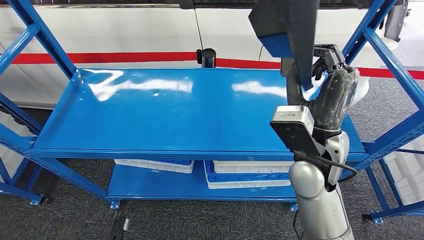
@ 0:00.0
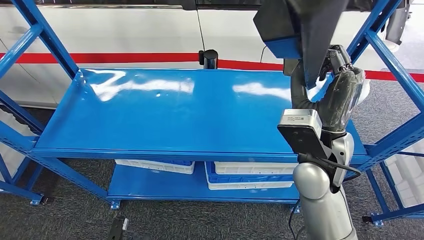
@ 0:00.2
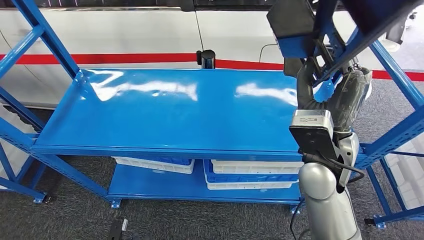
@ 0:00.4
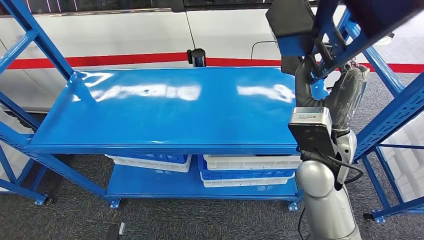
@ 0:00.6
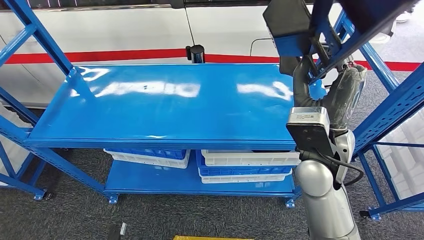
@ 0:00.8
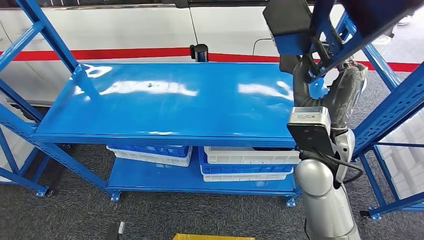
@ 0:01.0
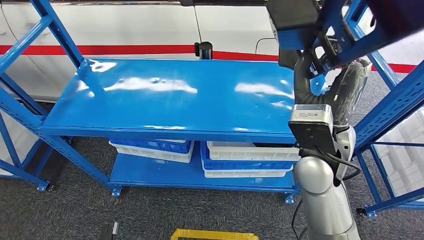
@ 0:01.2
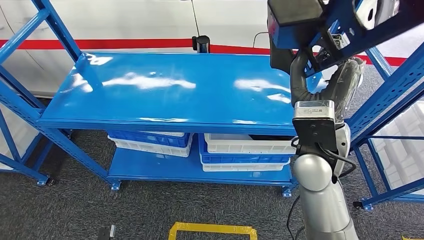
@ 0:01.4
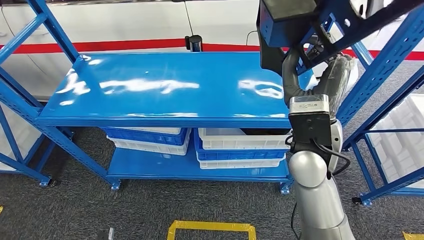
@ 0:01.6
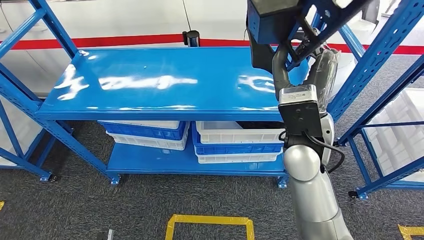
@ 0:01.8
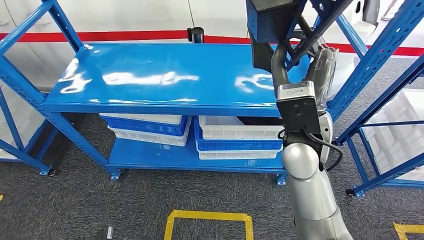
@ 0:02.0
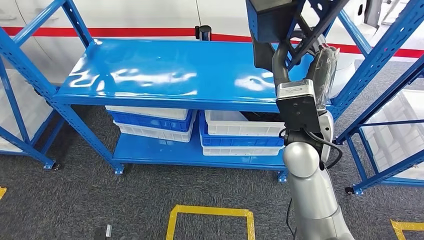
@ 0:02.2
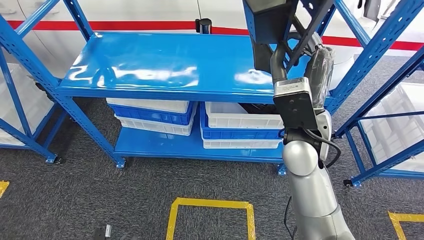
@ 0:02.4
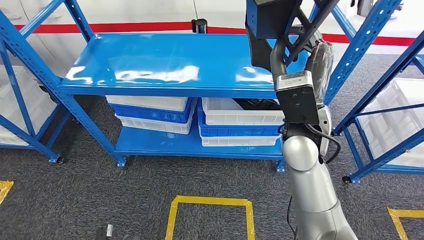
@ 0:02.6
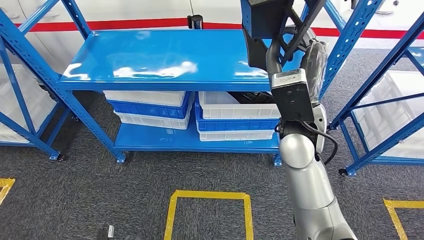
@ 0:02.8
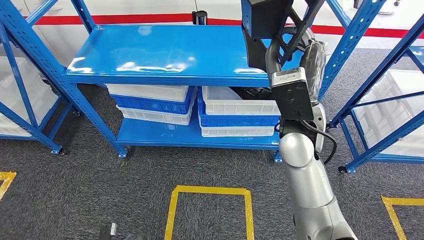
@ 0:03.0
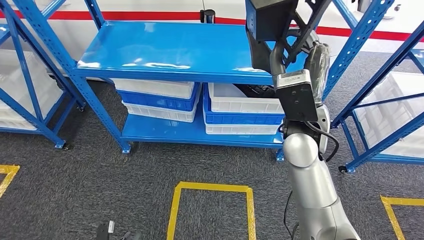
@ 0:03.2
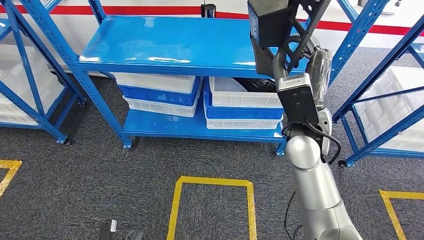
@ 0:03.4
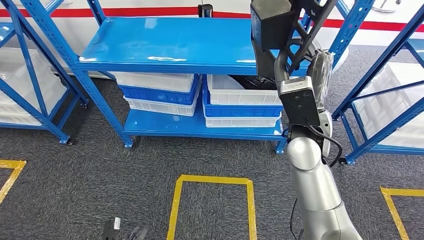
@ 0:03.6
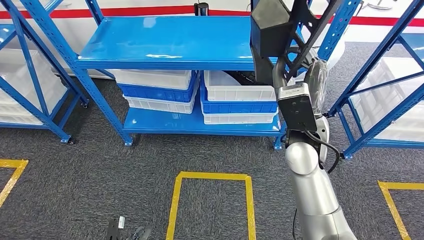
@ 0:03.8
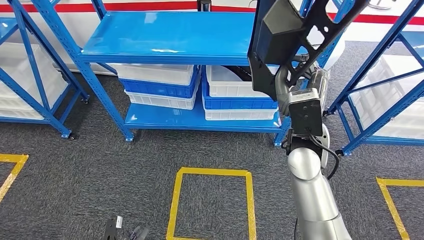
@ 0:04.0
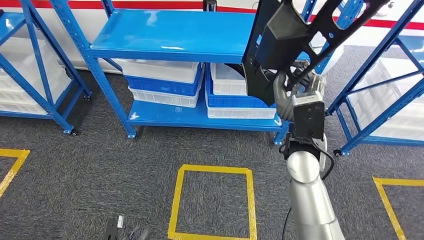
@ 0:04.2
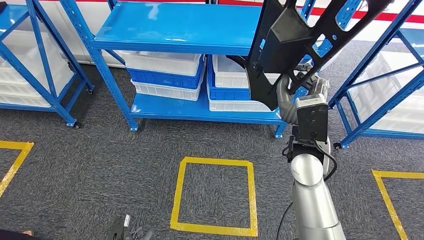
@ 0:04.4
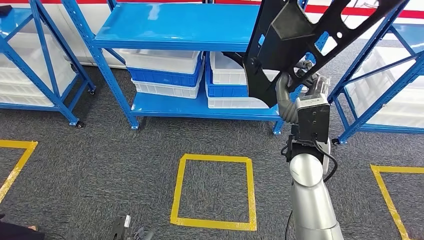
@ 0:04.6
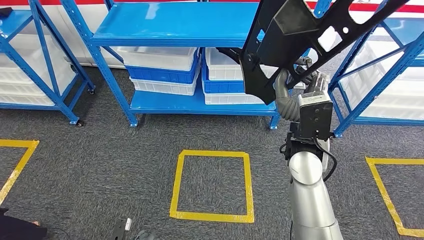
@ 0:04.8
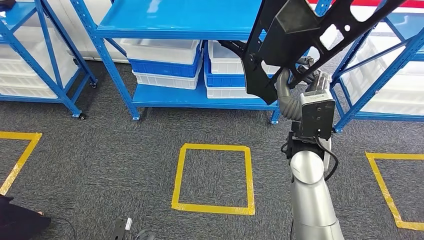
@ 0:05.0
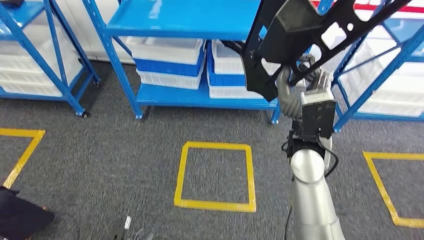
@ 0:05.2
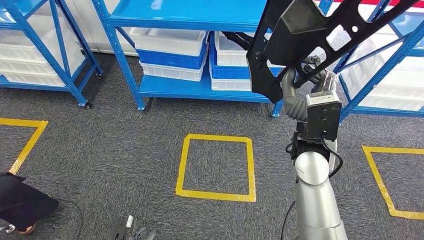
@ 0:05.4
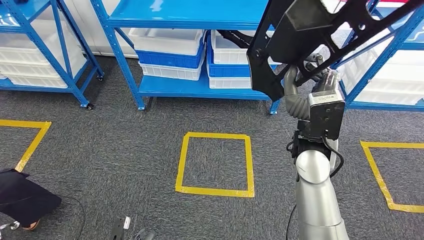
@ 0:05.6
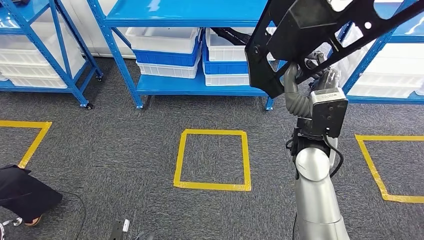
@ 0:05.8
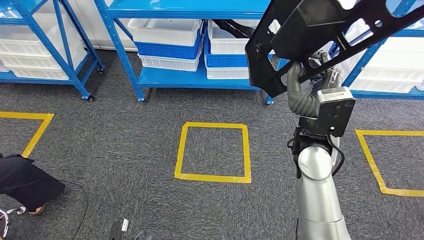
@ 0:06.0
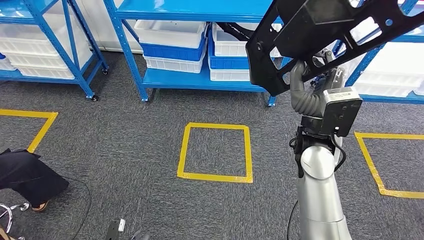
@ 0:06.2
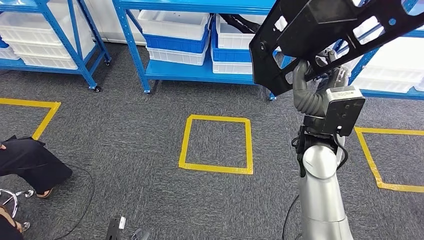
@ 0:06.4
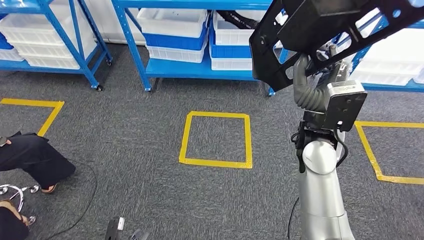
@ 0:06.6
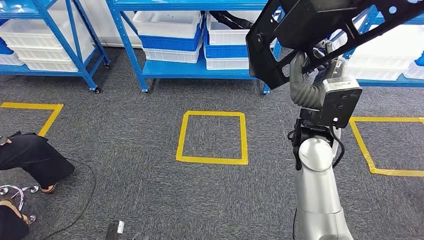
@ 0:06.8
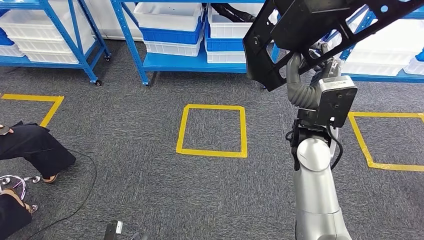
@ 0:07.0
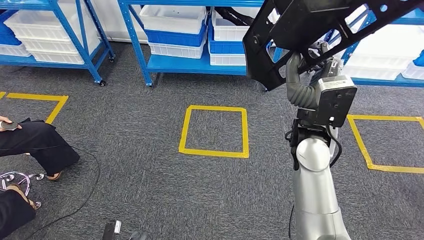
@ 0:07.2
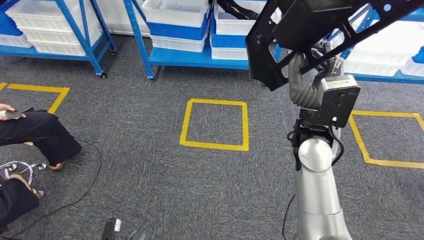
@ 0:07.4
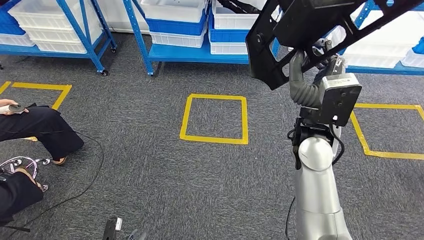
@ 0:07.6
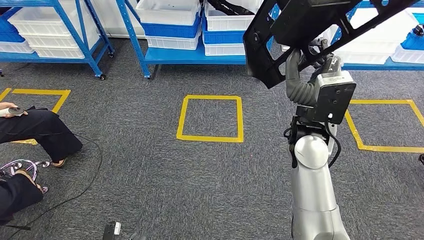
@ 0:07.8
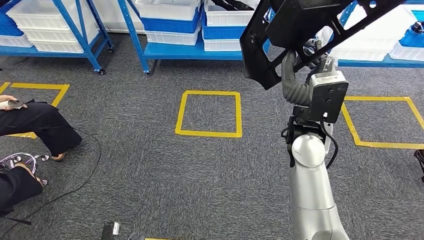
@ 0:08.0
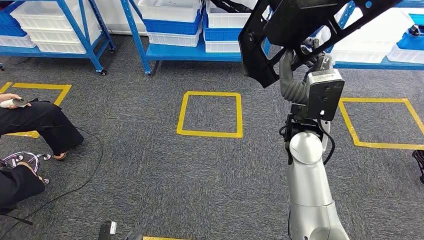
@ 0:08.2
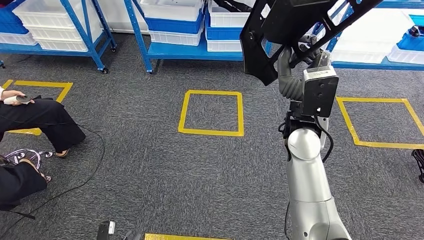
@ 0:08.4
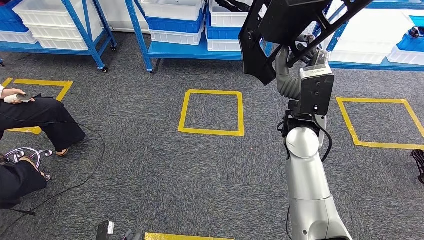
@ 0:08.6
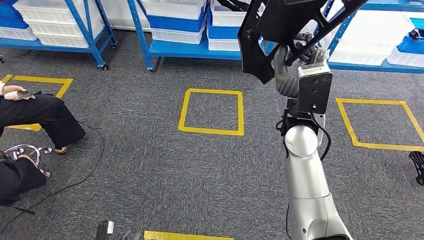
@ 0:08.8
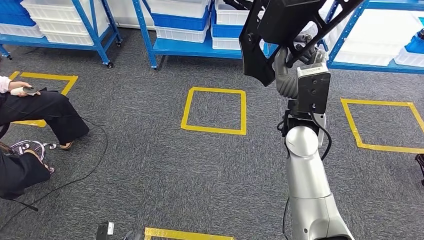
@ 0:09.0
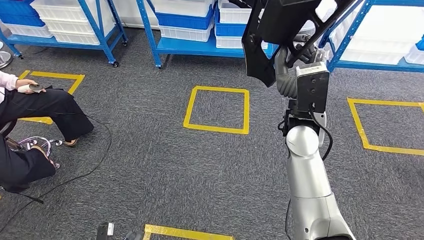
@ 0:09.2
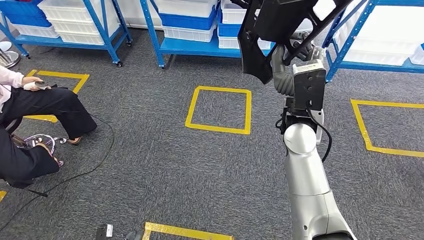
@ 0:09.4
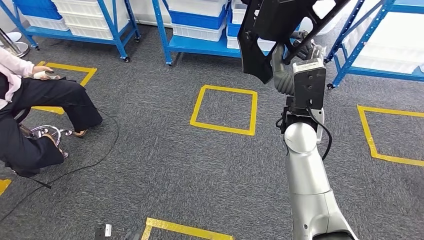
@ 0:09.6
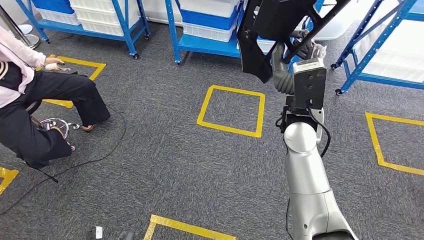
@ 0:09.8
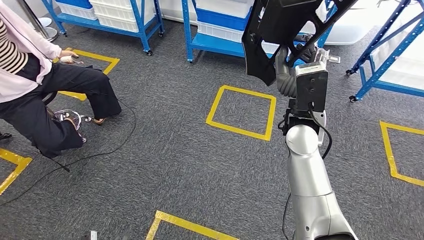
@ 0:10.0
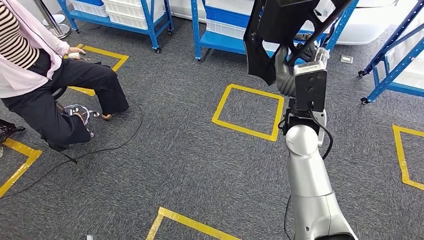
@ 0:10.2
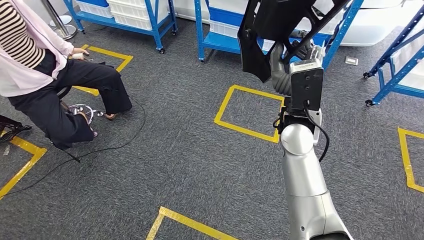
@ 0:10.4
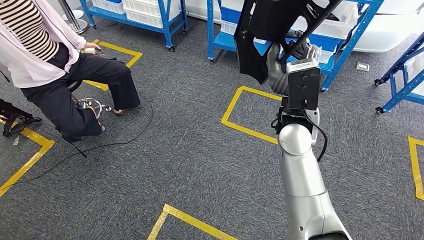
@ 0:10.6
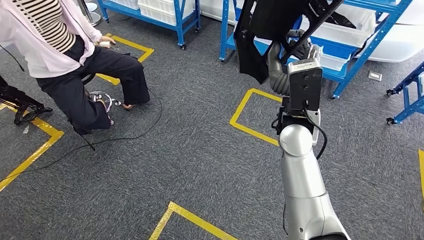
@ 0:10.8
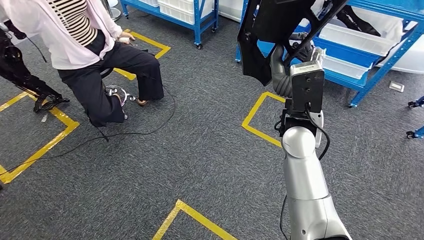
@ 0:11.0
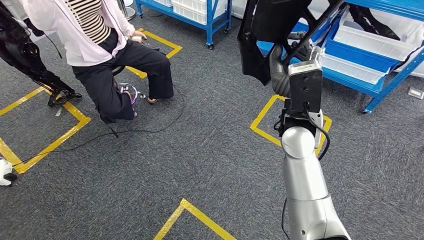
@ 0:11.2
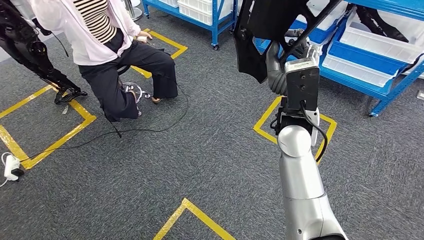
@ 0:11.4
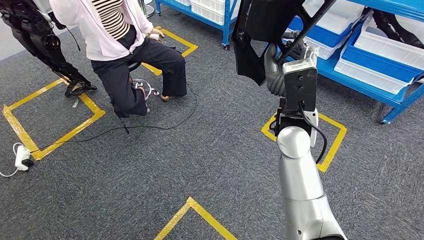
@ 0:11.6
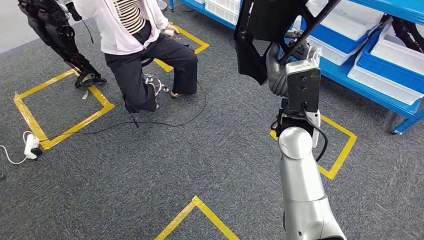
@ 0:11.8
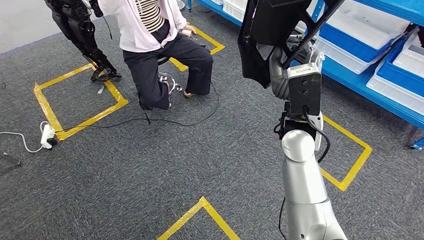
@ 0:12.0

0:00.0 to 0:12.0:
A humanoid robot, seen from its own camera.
Step, 0:00.0 to 0:03.8: Pick up the large material from the shelf.

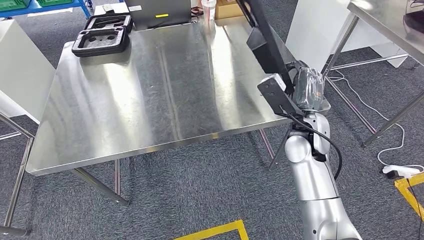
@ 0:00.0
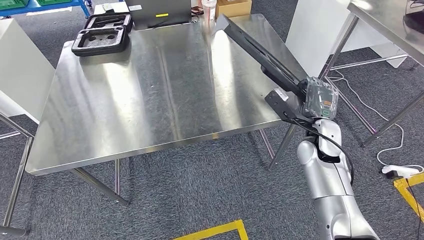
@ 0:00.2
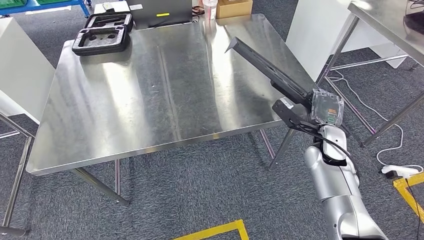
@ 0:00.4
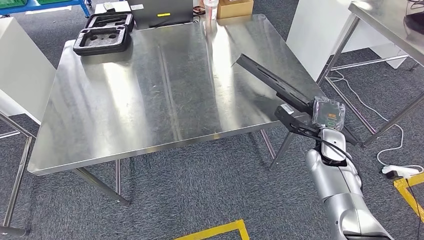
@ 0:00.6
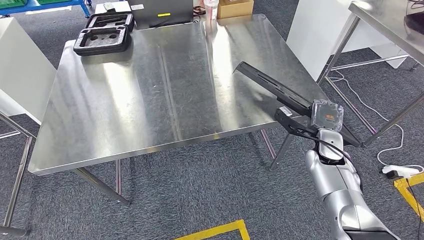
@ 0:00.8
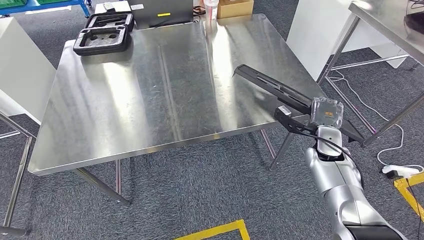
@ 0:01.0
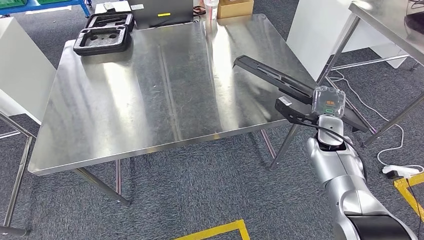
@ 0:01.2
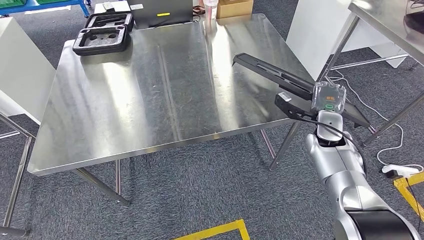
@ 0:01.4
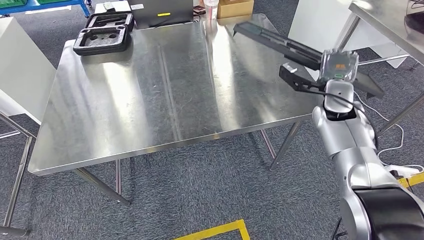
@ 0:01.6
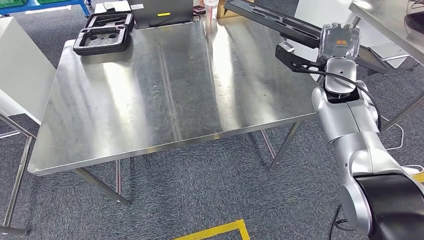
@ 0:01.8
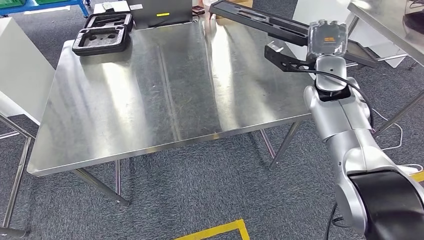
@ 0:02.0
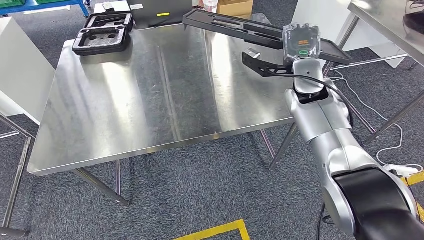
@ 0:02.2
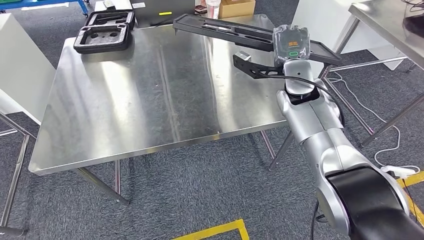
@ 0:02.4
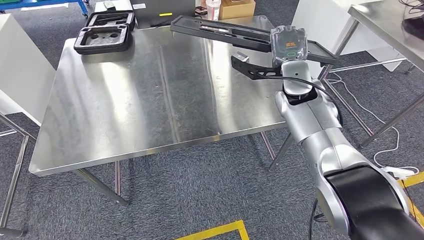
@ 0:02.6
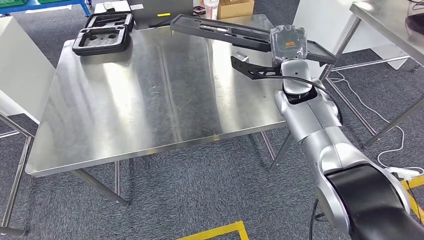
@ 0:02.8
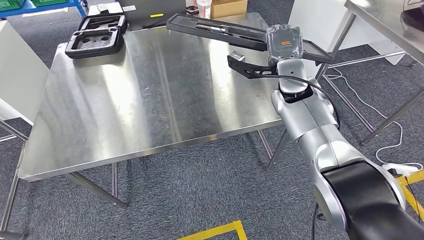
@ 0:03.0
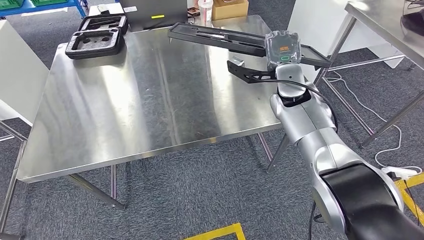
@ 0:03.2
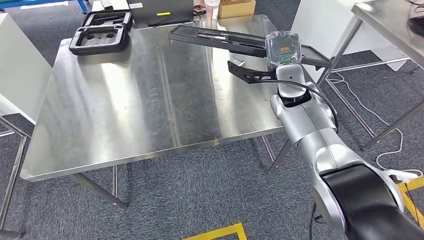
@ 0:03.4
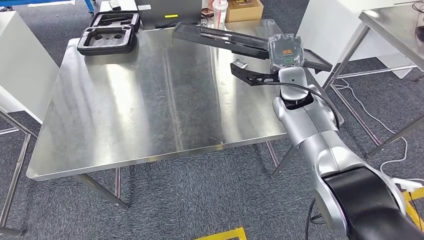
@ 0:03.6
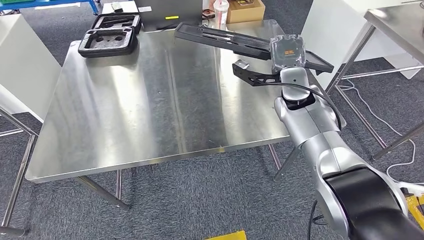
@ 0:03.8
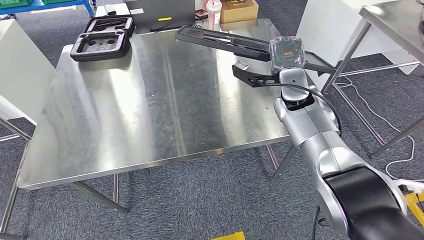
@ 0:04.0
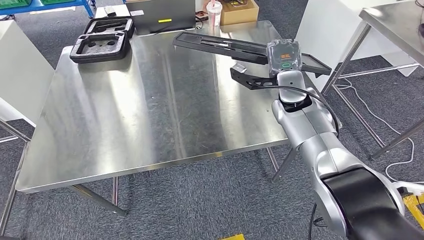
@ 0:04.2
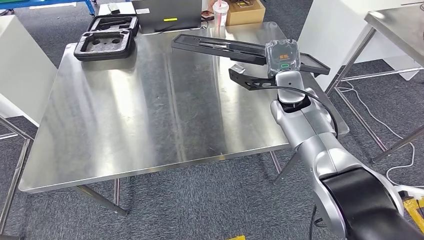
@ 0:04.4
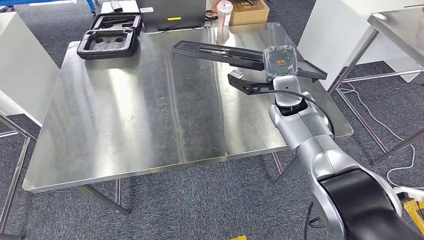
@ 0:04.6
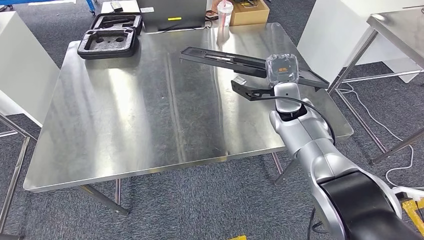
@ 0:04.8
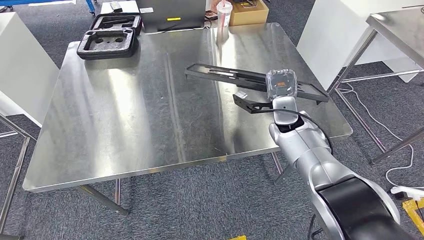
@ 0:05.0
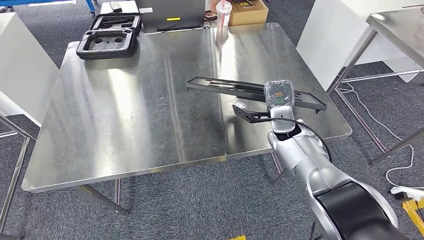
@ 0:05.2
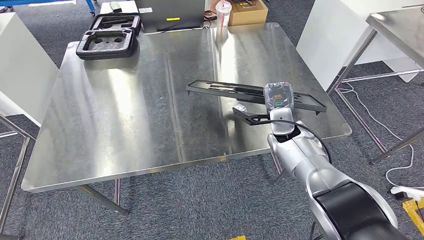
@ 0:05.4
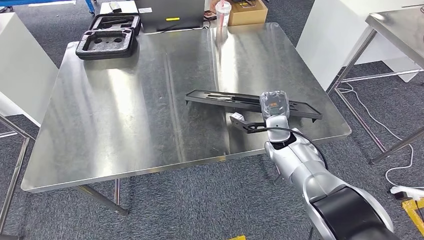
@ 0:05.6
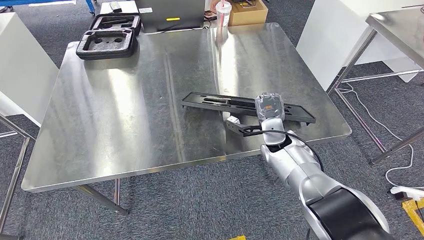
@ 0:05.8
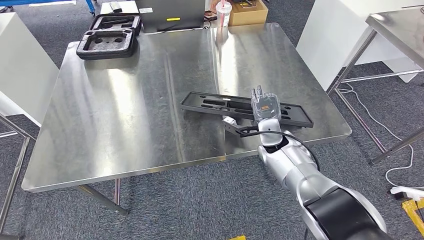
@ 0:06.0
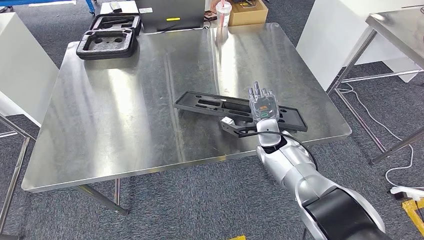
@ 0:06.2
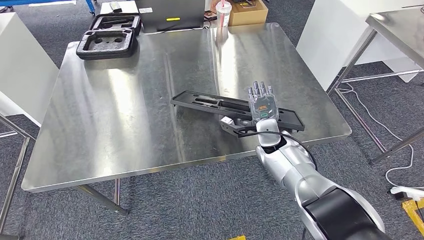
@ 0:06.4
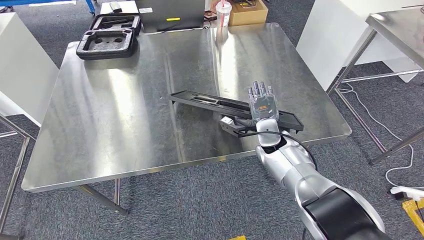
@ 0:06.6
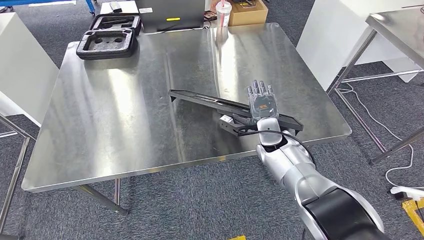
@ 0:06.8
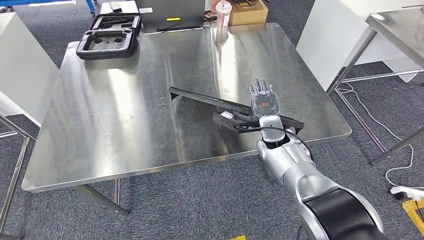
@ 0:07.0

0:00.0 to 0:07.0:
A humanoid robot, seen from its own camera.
0:00.0 to 0:01.4: The right hand goes about 15 cm to the right, downward and forward.
0:01.4 to 0:02.8: The right hand is displaced upward and to the left by roughly 15 cm.
0:05.6 to 0:07.0: The hands move only a little.
